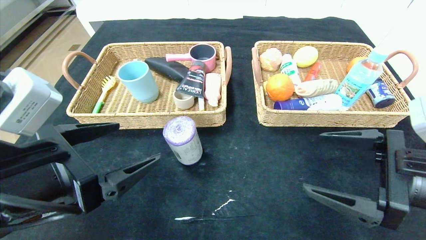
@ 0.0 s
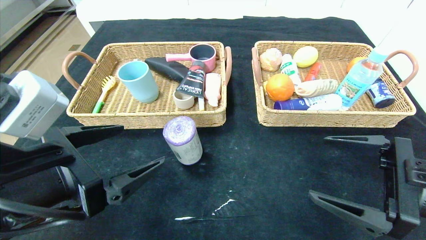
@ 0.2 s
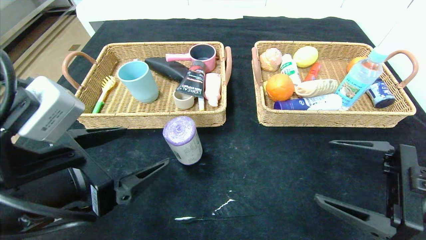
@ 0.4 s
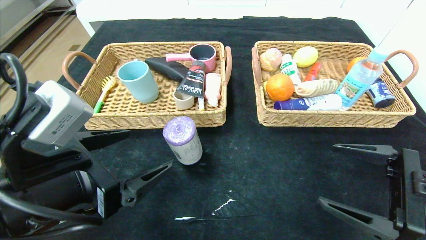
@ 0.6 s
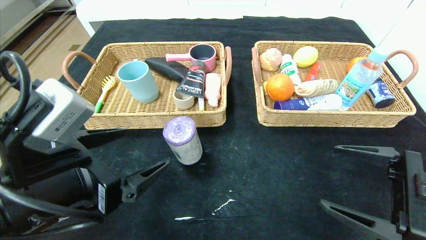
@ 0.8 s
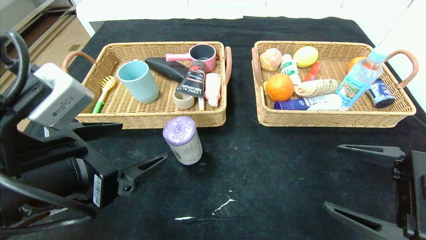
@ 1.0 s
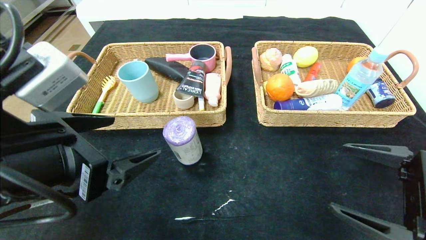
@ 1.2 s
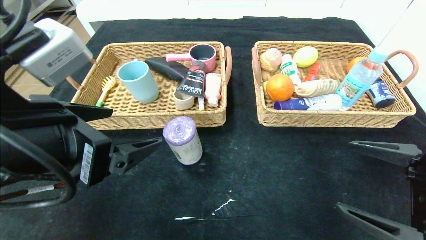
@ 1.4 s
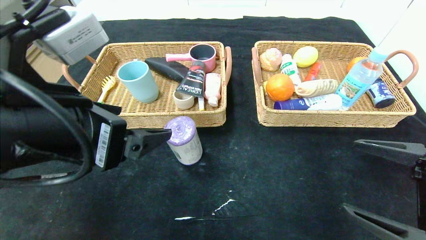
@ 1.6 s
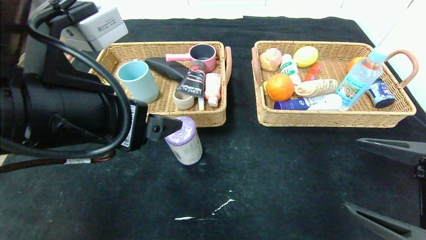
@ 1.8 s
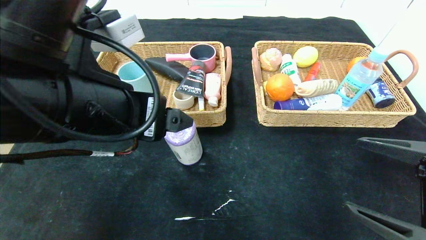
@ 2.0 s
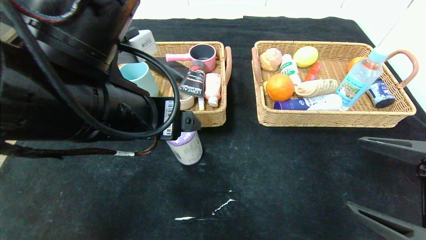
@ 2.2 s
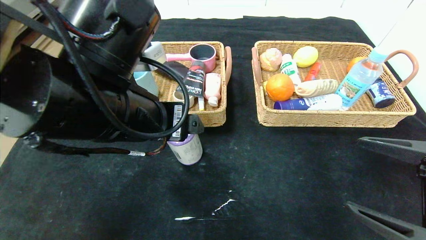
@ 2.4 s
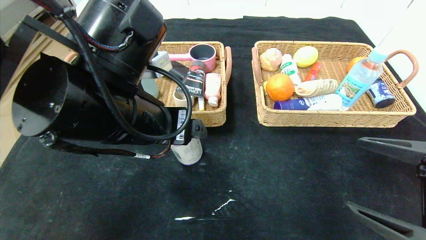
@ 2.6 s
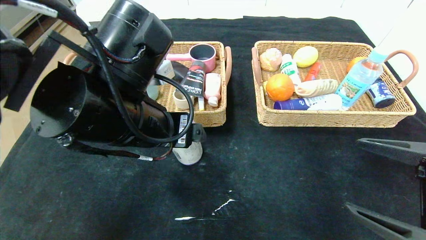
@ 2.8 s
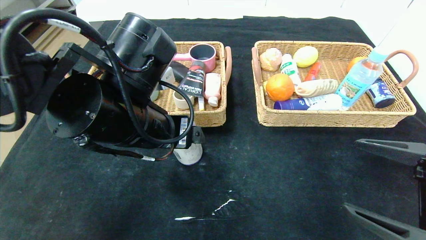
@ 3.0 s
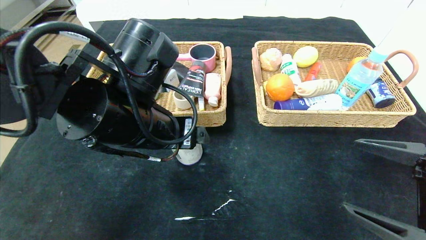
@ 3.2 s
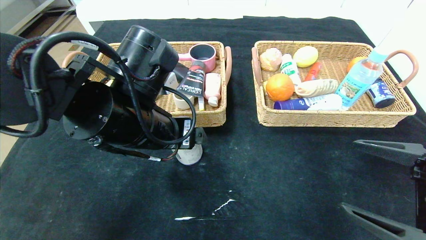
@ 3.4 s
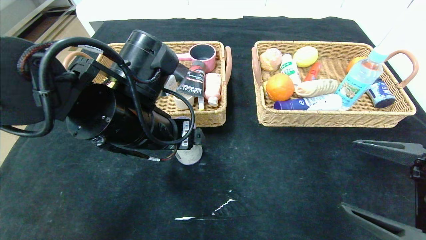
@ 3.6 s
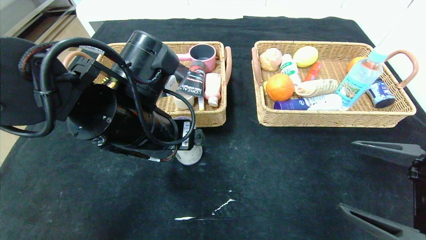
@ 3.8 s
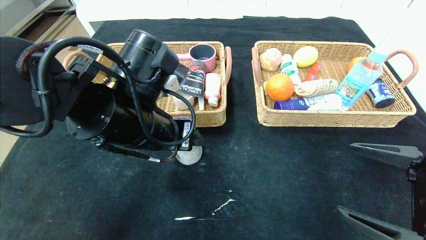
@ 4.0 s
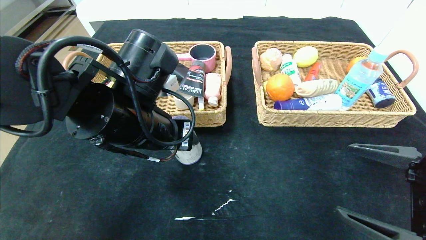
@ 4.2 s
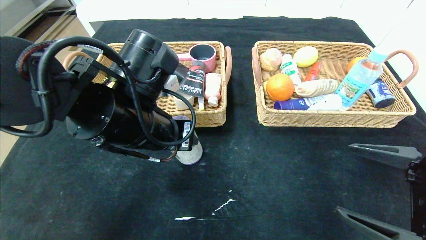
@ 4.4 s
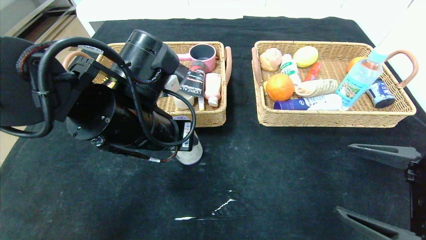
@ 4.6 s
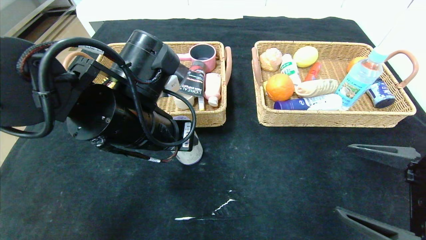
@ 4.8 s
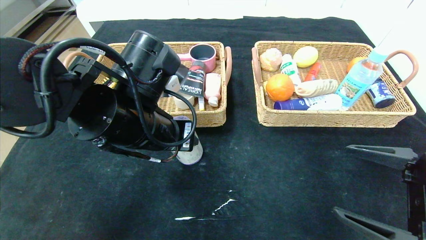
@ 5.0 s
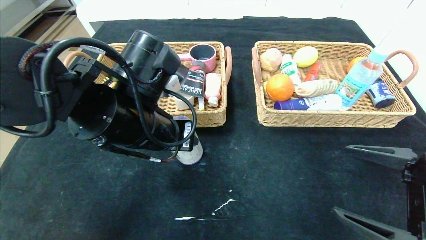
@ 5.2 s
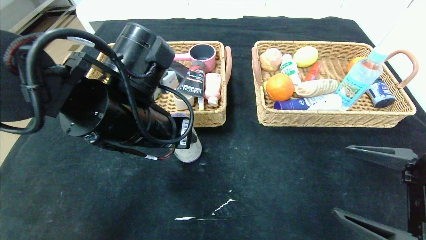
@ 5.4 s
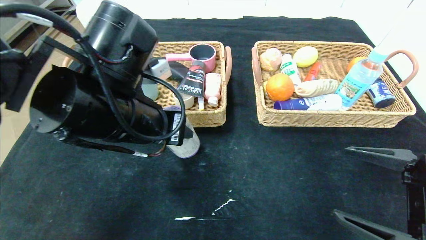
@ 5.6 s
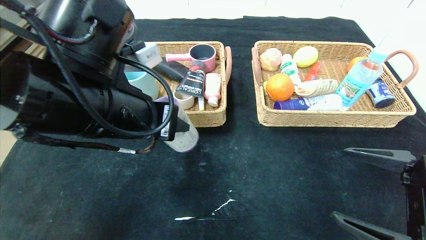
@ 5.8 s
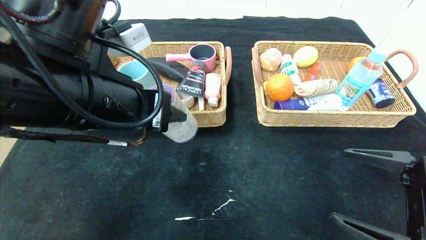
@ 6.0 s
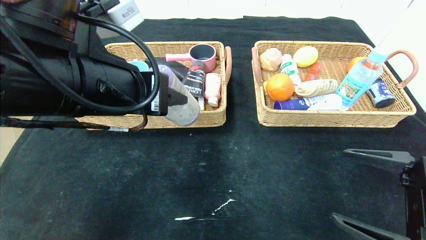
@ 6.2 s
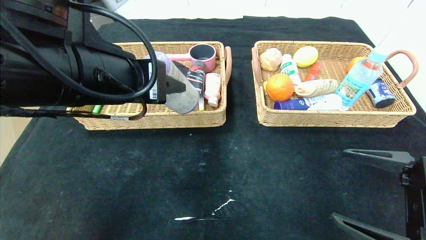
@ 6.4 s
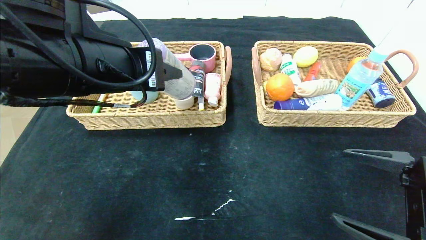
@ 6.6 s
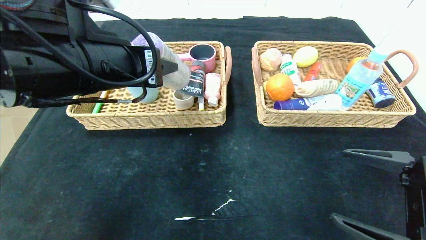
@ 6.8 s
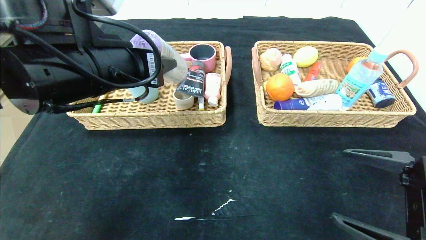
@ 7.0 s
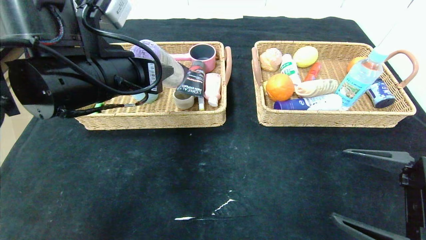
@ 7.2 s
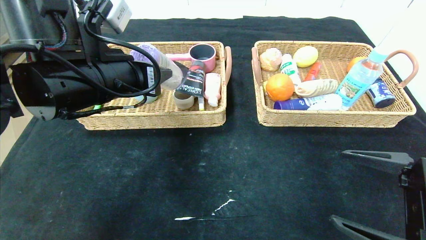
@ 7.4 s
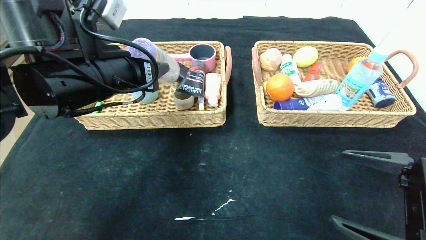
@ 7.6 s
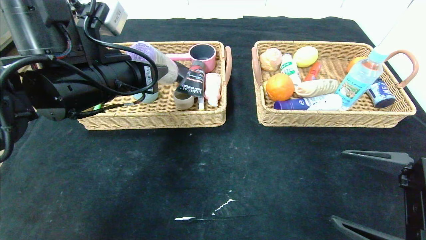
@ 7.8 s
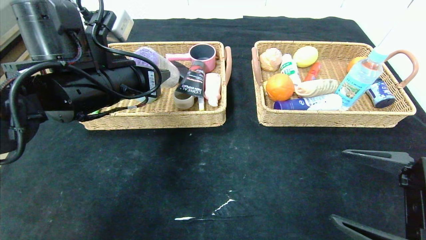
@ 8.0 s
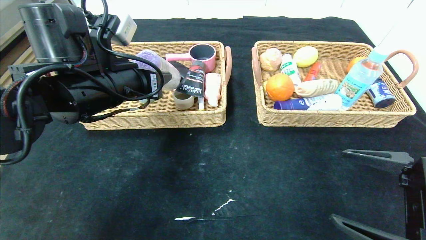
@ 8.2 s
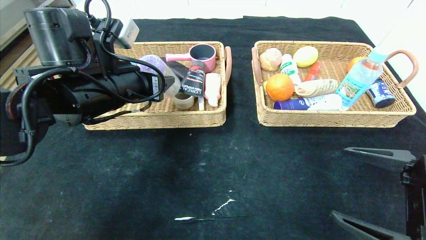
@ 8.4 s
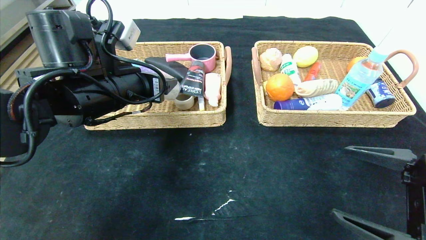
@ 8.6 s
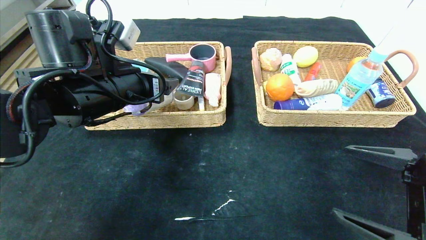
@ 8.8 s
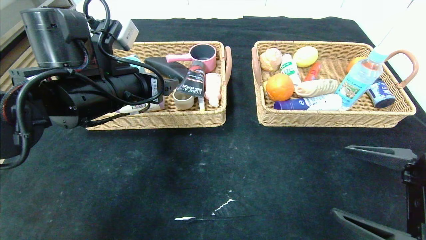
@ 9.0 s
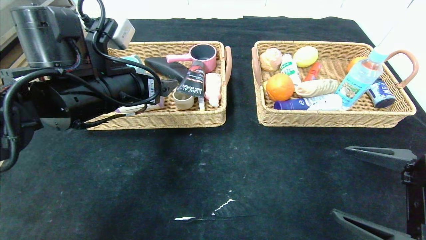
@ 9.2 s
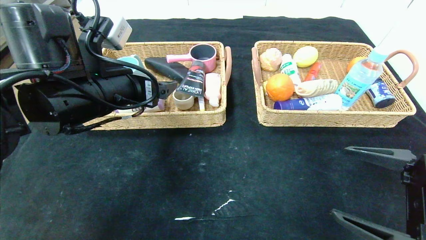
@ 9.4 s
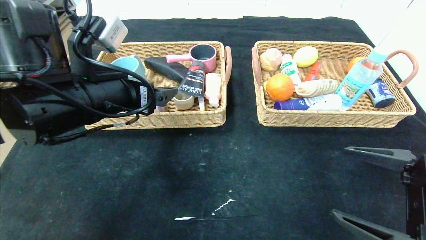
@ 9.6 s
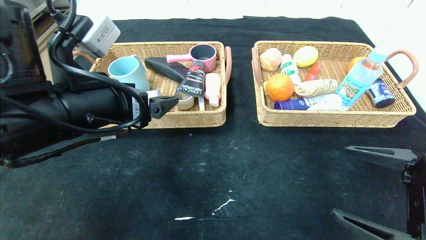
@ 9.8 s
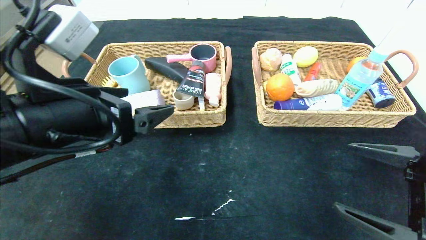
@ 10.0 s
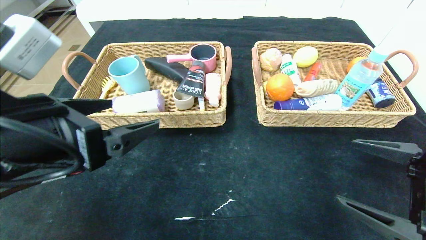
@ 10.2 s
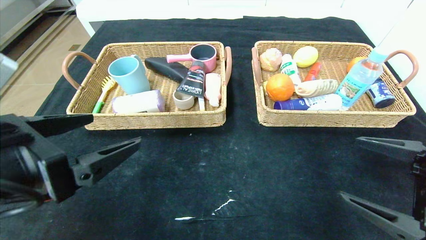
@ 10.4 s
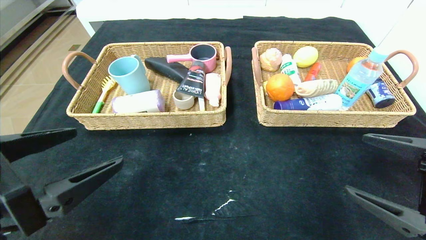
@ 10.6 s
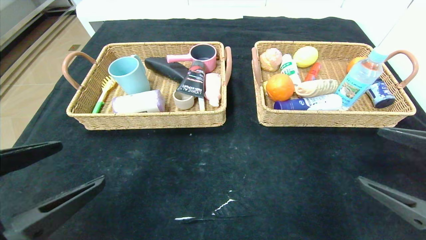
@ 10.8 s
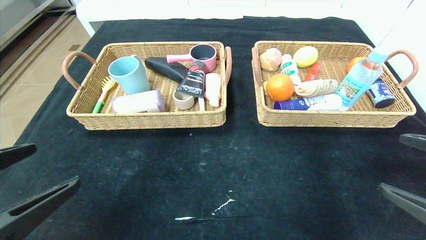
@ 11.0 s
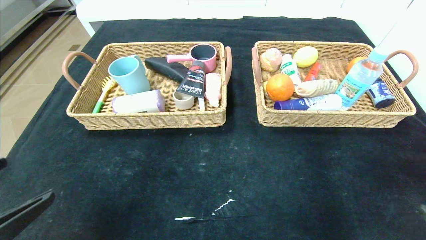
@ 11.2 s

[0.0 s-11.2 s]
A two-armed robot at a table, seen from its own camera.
Step, 0.0 to 8.8 s: Grasp the purple garbage bag and put it in the left basket.
0.0 to 1.6 s: The left gripper is displaced upward by roughly 5 cm.
1.6 to 3.2 s: The left gripper goes some 10 cm forward and to the right.
3.2 to 4.8 s: The left gripper closes up.
4.8 to 6.4 s: The left gripper moves upward, about 5 cm.
6.4 to 8.0 s: The left gripper travels forward by some 10 cm.
8.0 to 9.6 s: The left gripper opens.
9.6 to 11.2 s: The right gripper moves backward and to the right, some 10 cm. The left gripper is displaced backward and to the left by about 20 cm.

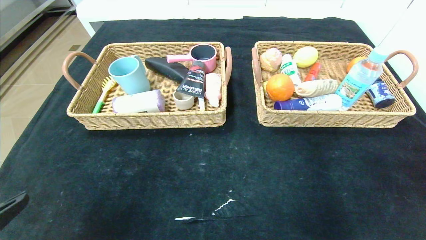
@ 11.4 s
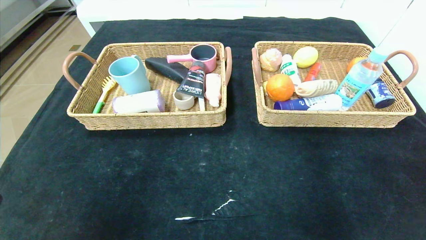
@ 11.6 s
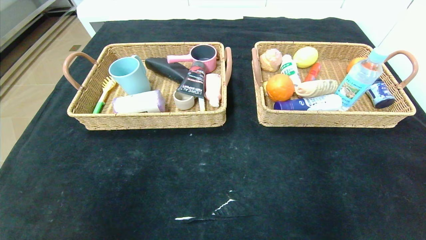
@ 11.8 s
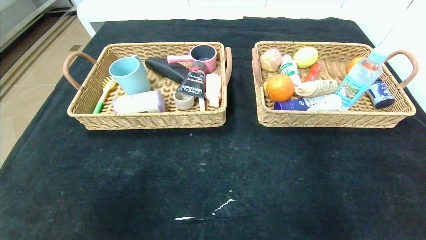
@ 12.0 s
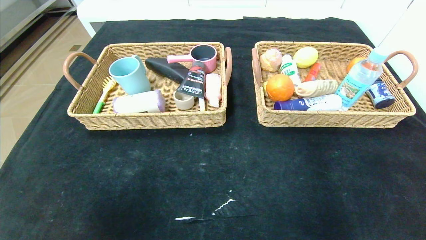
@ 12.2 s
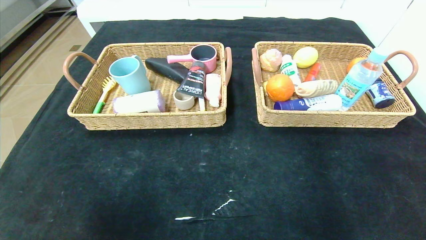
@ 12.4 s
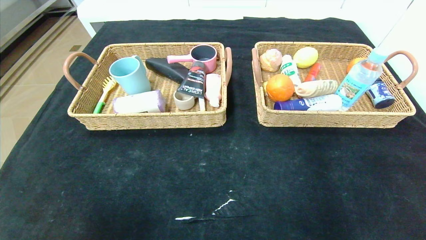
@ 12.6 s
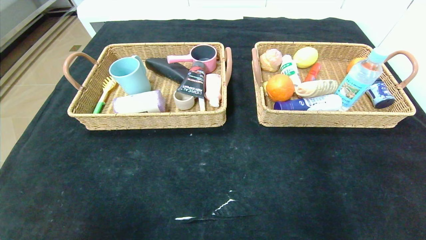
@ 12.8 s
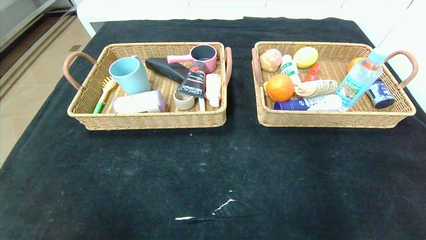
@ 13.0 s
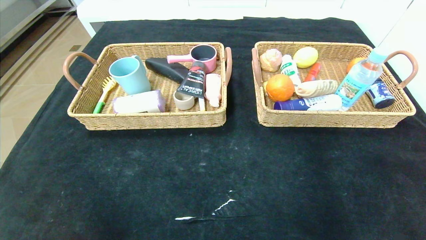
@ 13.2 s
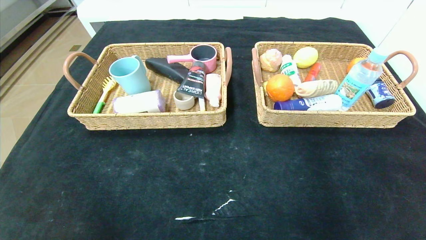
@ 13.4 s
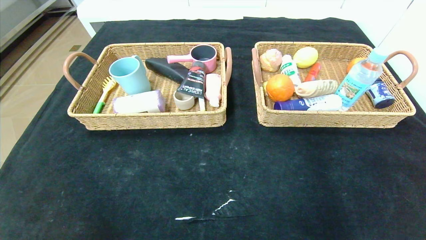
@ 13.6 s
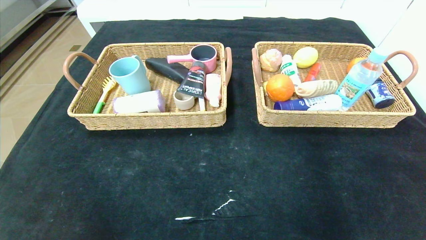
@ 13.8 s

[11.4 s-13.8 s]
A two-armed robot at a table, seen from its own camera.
11.4 to 12.6 s: The left gripper shifts approximately 10 cm downward and backward. Meanwhile the right gripper heads backward and downward, covering about 15 cm.
